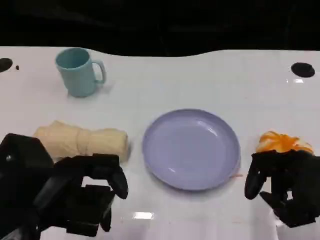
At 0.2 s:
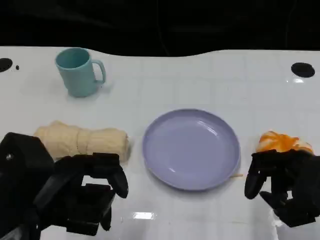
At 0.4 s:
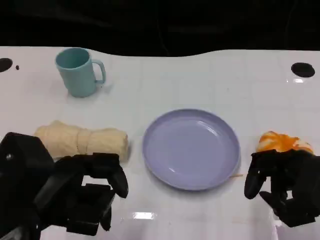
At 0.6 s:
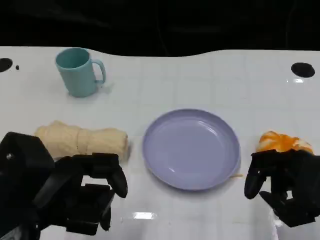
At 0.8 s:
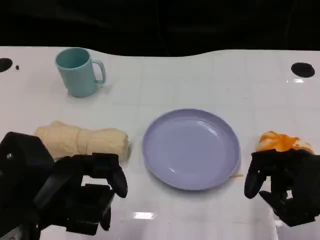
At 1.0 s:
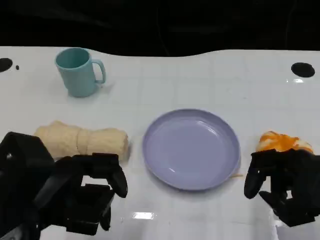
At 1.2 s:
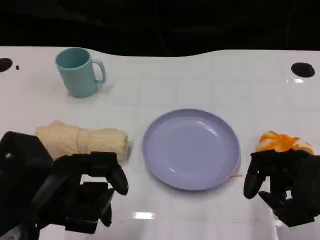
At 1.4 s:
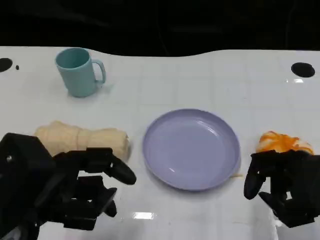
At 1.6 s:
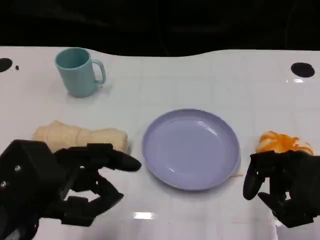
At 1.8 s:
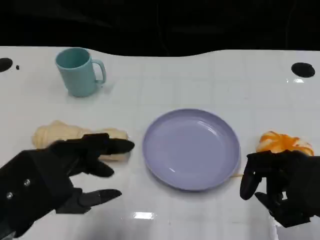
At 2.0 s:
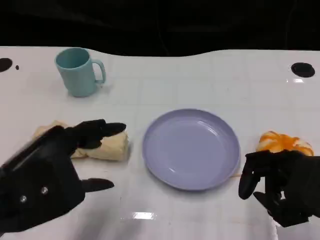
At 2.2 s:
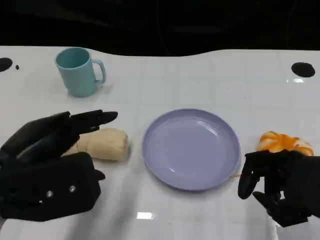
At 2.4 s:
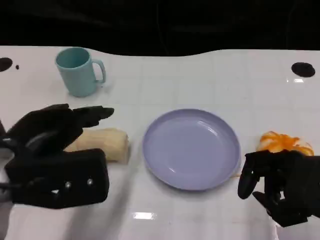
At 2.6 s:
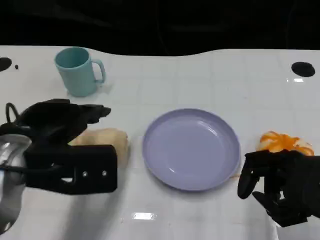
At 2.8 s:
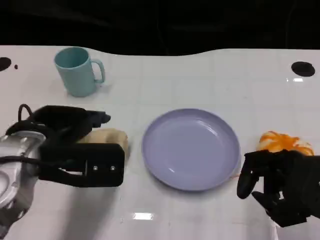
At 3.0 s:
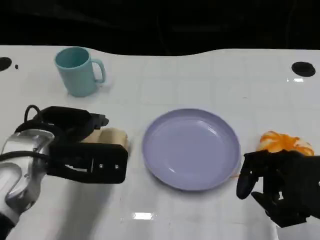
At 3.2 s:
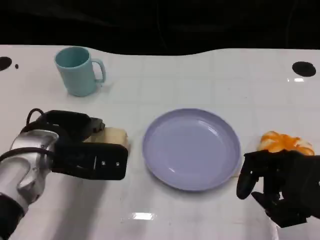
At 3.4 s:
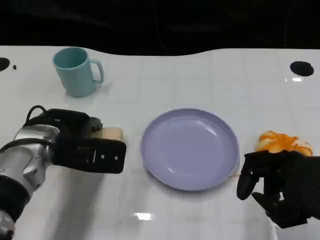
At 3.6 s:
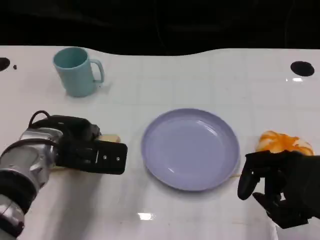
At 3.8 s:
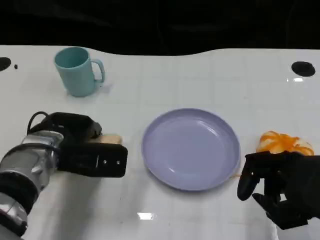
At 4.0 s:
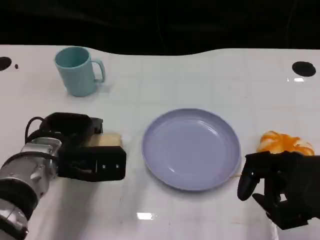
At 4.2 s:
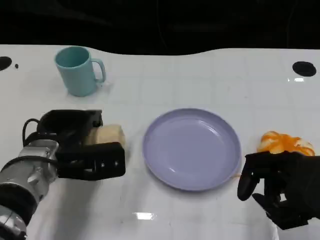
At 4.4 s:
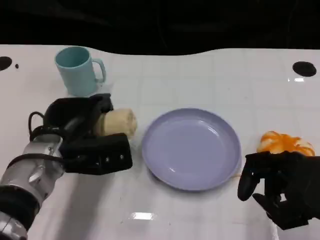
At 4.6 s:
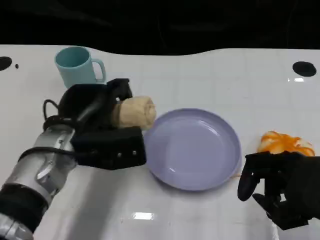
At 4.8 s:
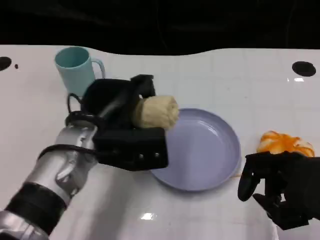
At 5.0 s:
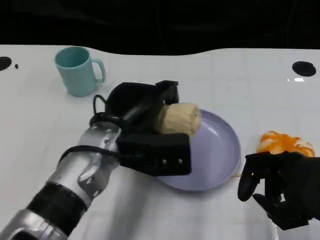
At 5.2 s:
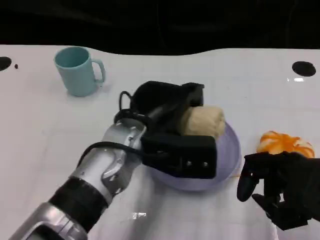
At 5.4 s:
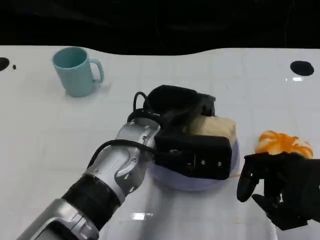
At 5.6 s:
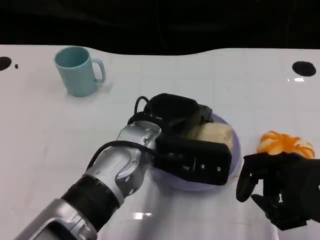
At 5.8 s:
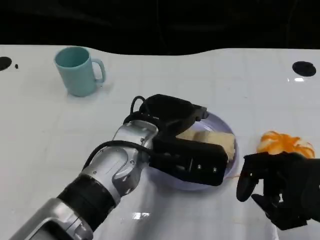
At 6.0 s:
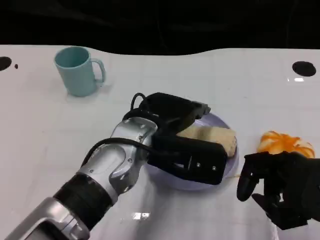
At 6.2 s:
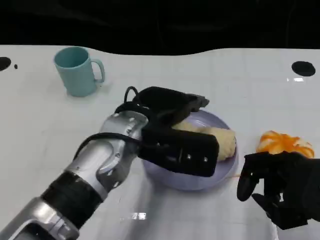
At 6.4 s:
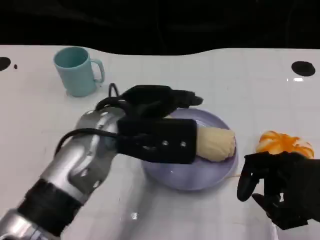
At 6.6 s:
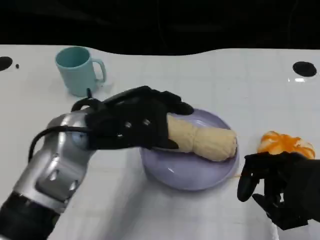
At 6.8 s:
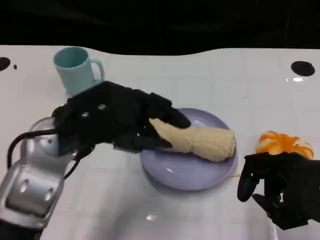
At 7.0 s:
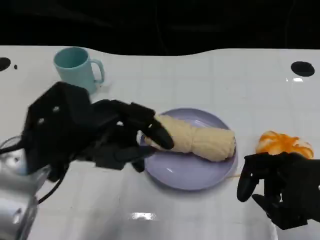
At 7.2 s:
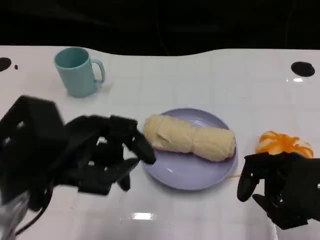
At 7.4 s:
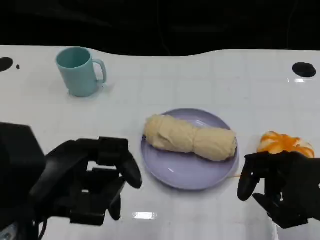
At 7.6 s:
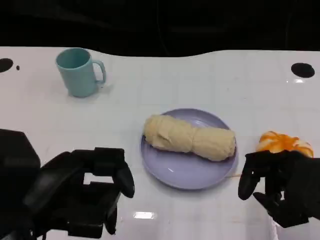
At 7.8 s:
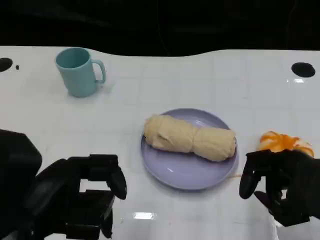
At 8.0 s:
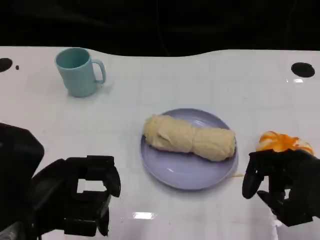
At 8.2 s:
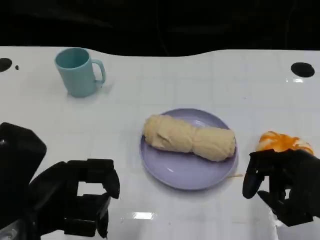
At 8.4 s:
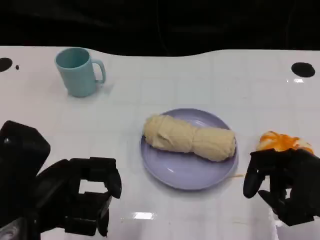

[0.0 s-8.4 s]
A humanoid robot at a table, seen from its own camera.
Task of the whole recording: Grasp the towel on the left side of the plate with the left hand and place it into the plate.
0.0 to 1.4 s: There are only small adjustments of the hands.
1.4 to 2.8 s: The left hand goes about 10 cm forward.
2.8 to 4.2 s: The left hand moves downward, approximately 5 cm.
4.2 to 5.6 s: The left hand goes roughly 15 cm to the right and upward.
5.6 to 7.0 s: The left hand is displaced to the left and backward by some 15 cm.
7.0 to 8.4 s: The left hand is displaced backward by roughly 5 cm.

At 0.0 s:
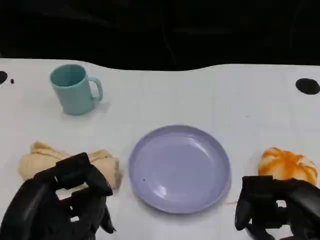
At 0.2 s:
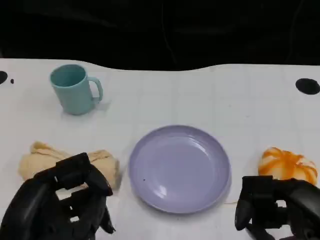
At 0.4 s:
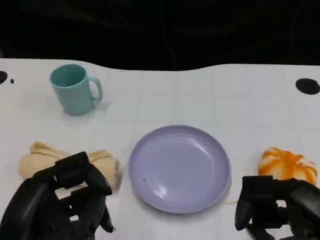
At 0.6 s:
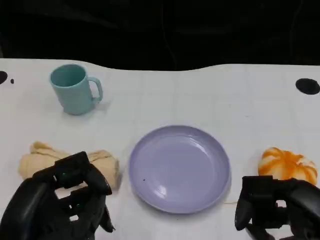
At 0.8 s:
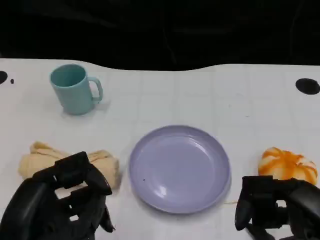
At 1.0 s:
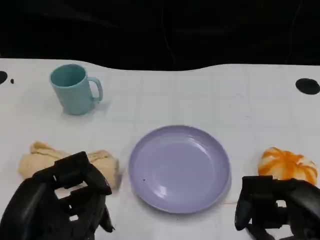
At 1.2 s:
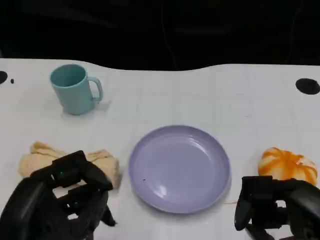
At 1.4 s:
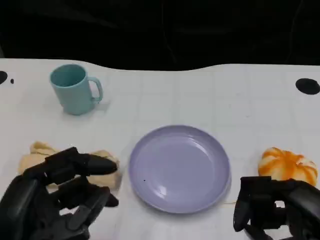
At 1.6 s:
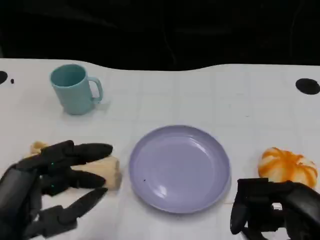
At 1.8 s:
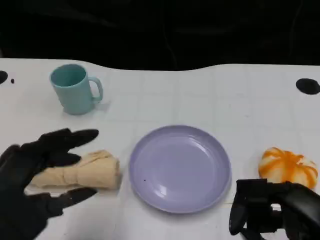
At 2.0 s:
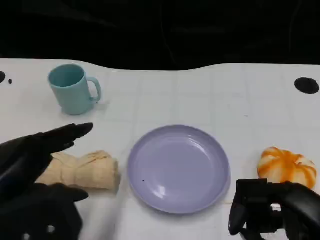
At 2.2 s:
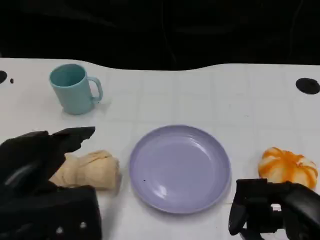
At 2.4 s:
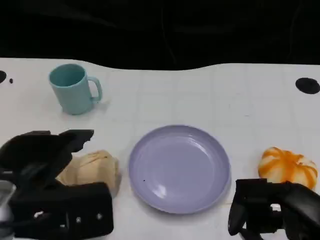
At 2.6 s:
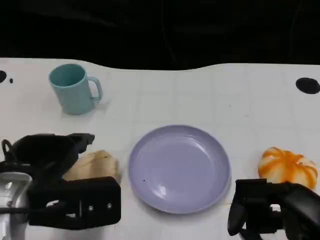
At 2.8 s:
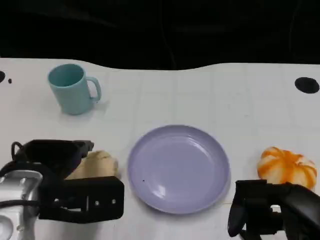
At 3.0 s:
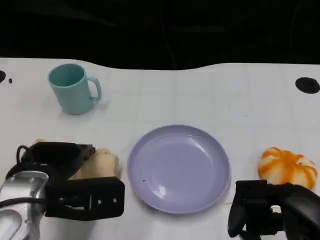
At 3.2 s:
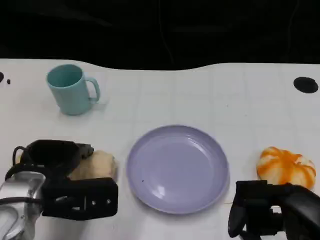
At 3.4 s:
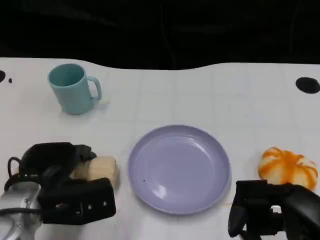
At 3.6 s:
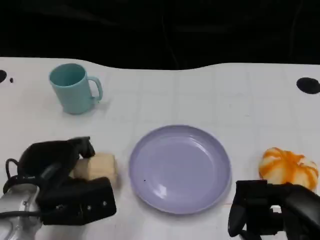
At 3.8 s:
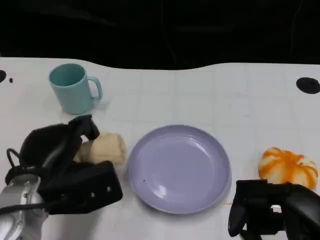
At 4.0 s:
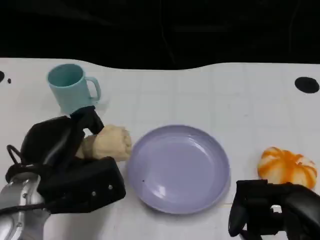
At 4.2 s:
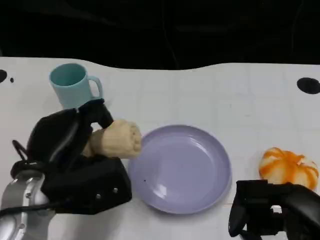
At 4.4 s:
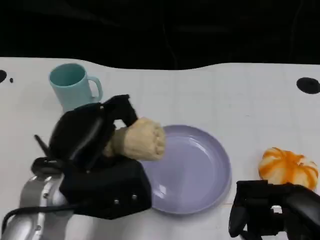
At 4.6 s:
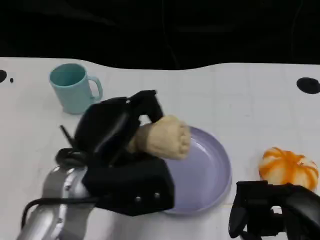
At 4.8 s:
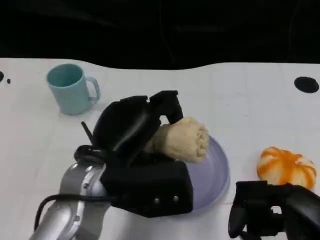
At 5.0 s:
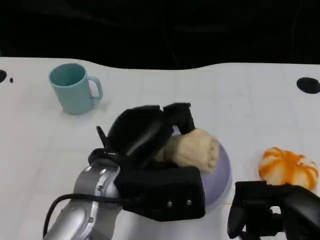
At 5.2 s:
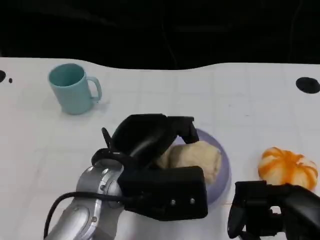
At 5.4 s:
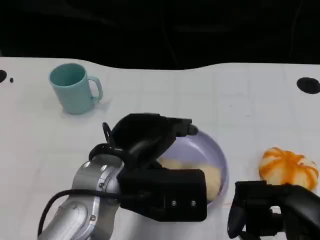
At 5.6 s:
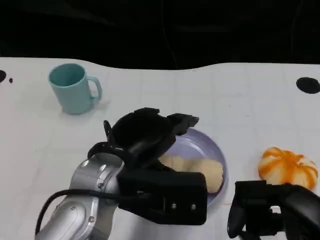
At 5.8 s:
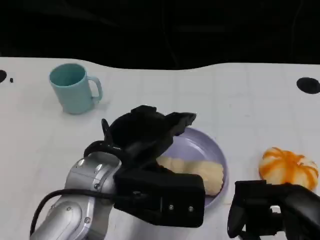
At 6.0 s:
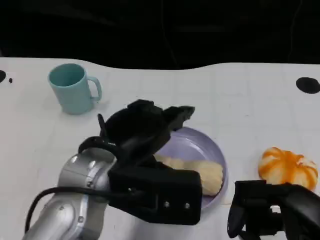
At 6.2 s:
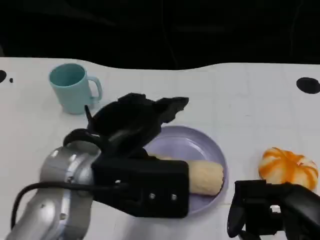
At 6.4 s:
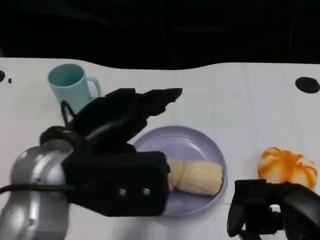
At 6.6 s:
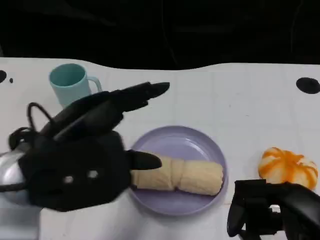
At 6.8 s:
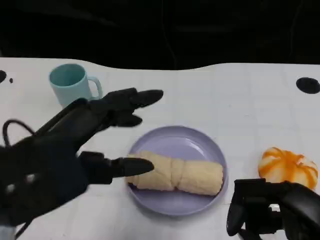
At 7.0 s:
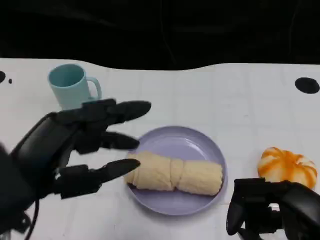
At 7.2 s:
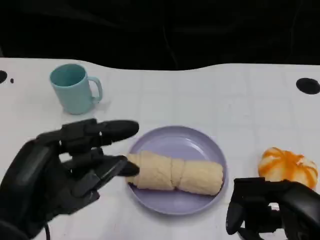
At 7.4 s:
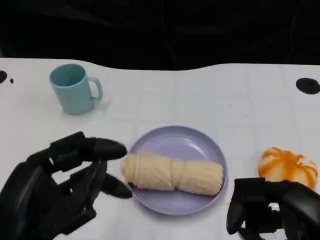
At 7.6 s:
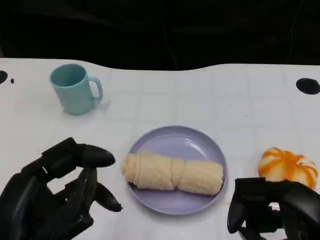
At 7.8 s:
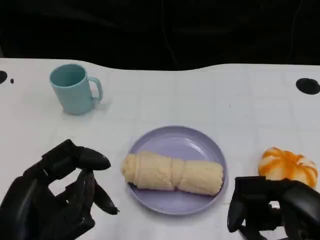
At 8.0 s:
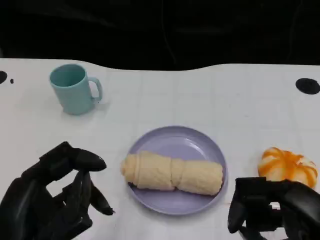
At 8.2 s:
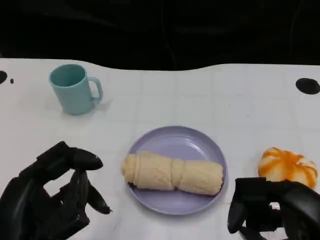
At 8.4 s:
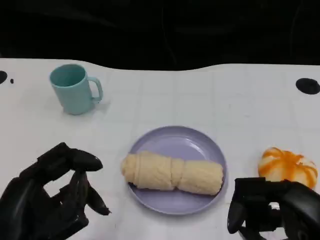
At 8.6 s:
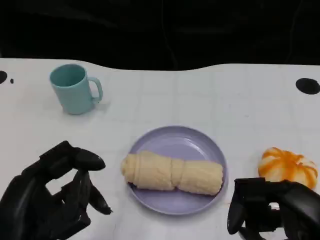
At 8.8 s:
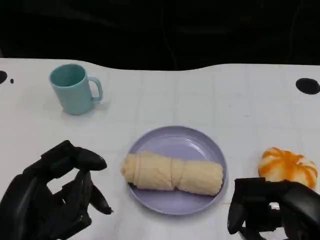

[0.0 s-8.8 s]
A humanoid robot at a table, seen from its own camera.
Task of the whole recording: Grasp the towel on the left side of the plate with the left hand and place it into the plate.
0.0 to 1.4 s: The hands stay close to where they were, moving slightly.
1.4 to 3.0 s: The left hand is displaced forward by some 15 cm.
3.0 to 4.4 s: The left hand changes place by about 5 cm.
4.4 to 5.8 s: The left hand goes about 5 cm to the right.
5.8 to 7.4 s: The left hand is displaced backward and to the left by approximately 15 cm.
7.4 to 8.8 s: The hands make only small movements.

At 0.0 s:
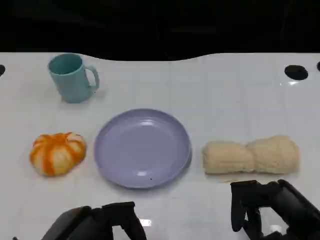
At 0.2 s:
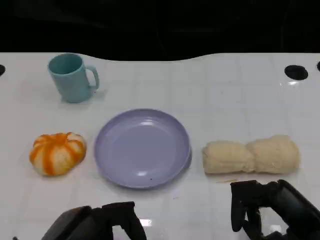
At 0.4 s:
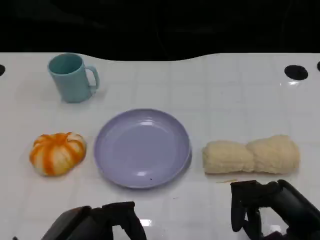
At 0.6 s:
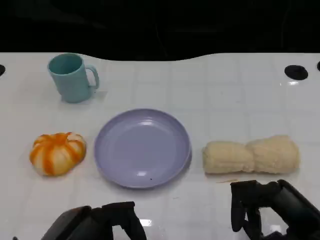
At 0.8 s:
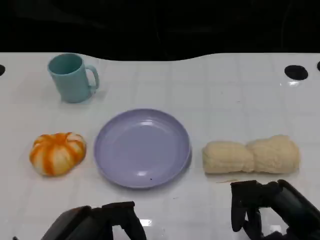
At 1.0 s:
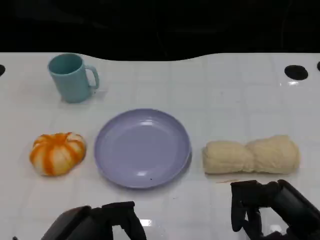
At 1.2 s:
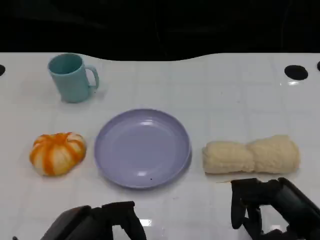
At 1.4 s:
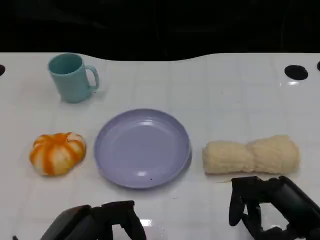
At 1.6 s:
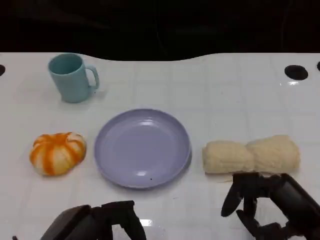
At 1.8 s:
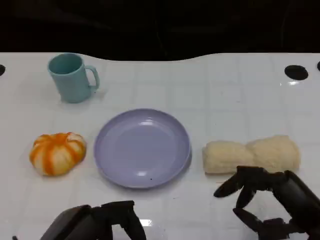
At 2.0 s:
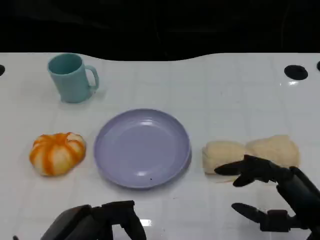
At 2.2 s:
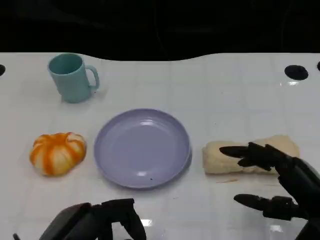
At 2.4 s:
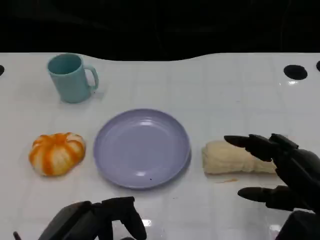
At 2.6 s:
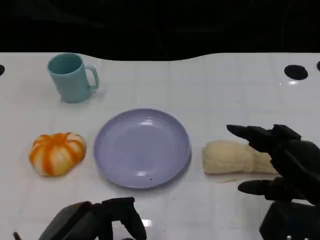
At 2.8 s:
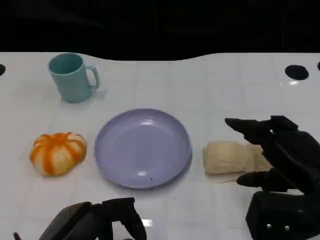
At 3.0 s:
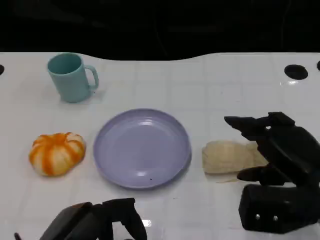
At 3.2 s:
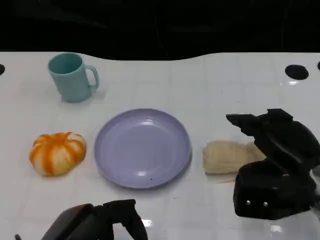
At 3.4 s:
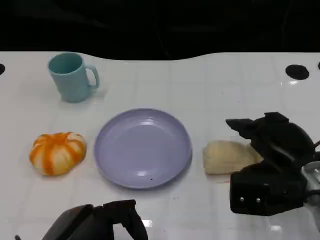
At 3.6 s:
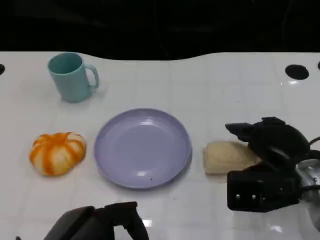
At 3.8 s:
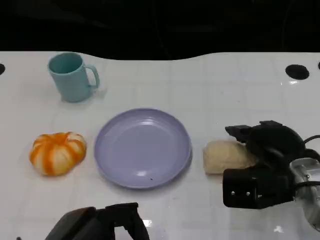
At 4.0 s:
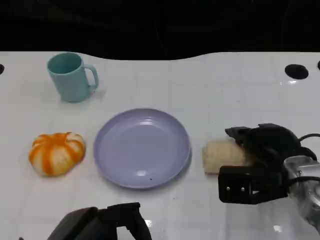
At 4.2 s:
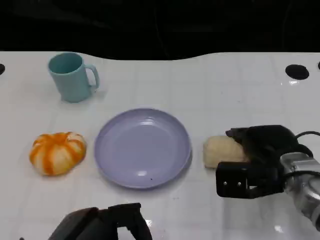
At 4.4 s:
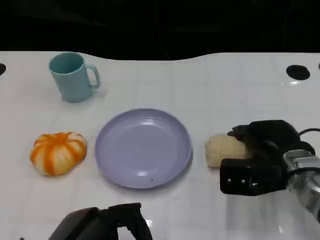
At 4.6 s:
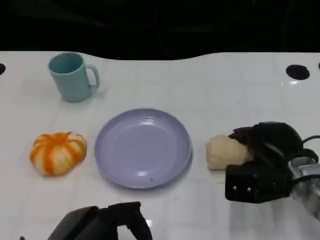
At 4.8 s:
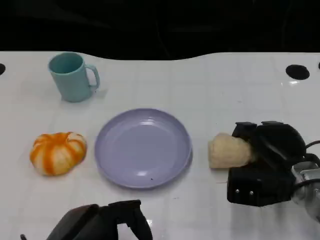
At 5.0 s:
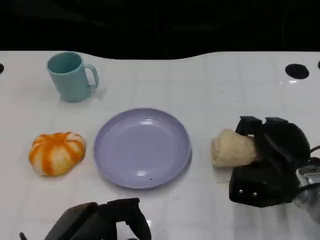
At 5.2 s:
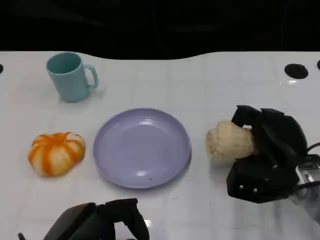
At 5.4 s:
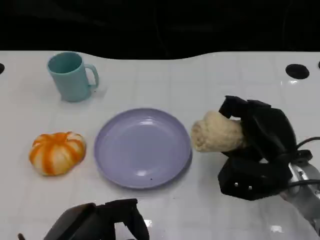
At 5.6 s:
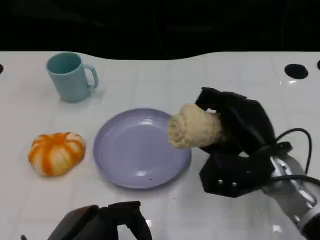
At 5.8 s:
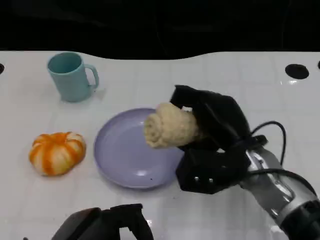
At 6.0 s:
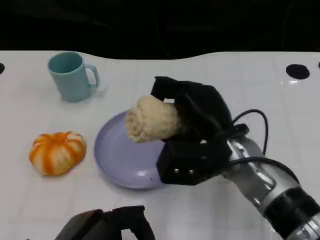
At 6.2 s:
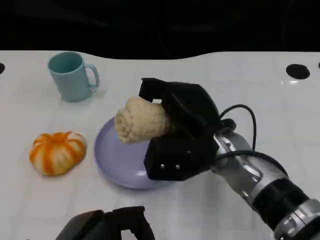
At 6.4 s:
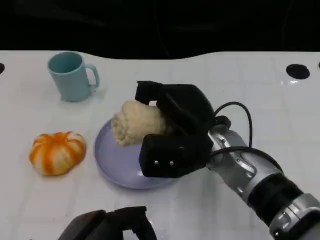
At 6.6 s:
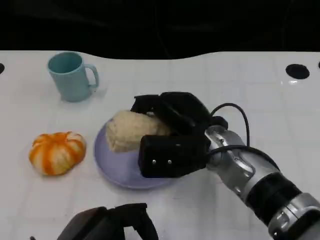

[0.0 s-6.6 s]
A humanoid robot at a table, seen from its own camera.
Task of the whole recording: Grasp the towel on the left side of the plate with the left hand and place it into the plate.
0.0 to 1.6 s: Neither hand changes place.
1.6 to 3.2 s: The right hand heads forward, covering some 10 cm.
3.2 to 5.0 s: The right hand travels downward by some 5 cm.
5.0 to 6.6 s: The right hand is displaced to the left and upward by some 15 cm.
